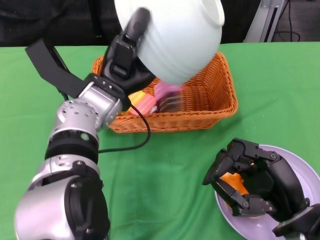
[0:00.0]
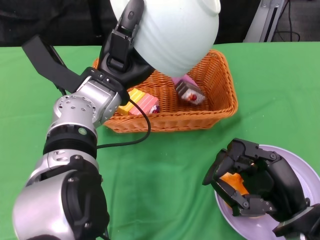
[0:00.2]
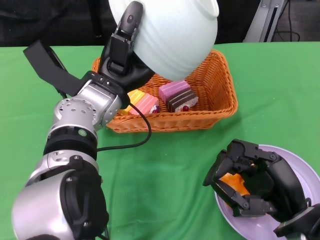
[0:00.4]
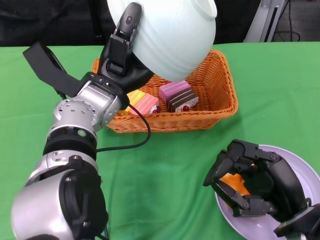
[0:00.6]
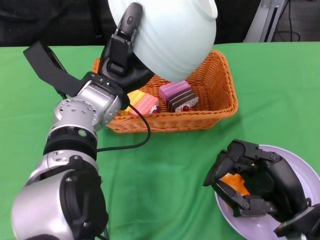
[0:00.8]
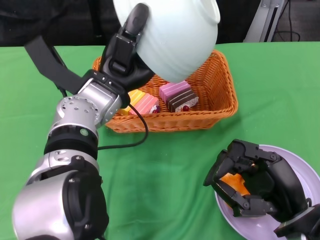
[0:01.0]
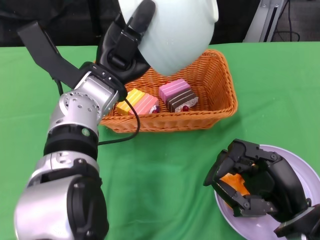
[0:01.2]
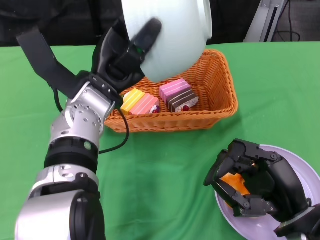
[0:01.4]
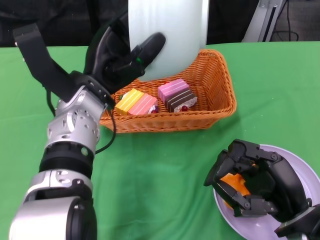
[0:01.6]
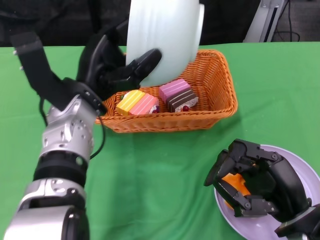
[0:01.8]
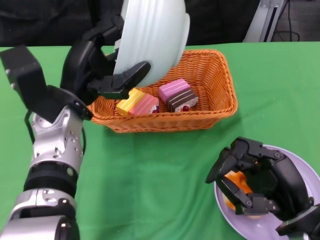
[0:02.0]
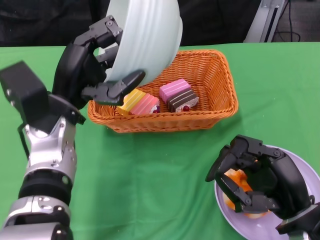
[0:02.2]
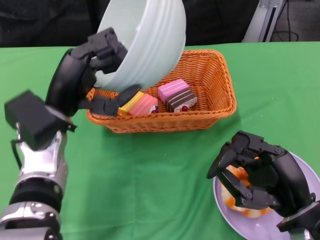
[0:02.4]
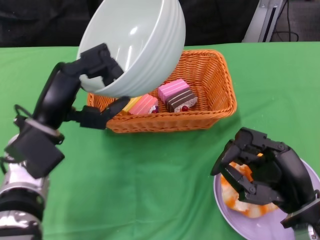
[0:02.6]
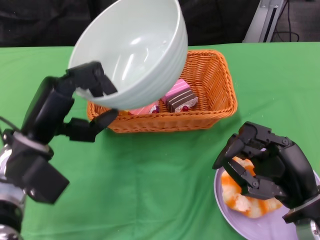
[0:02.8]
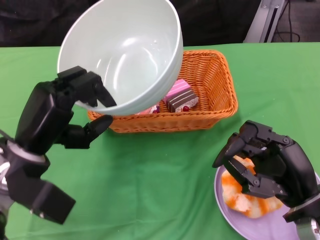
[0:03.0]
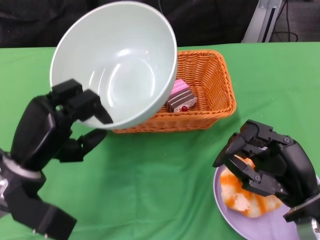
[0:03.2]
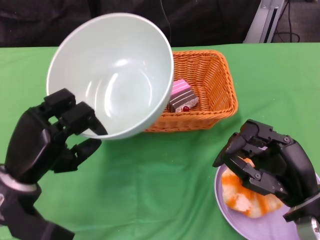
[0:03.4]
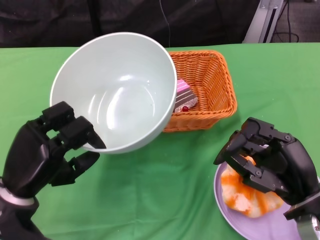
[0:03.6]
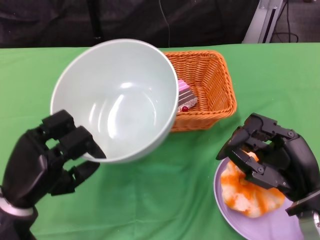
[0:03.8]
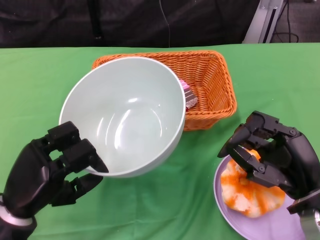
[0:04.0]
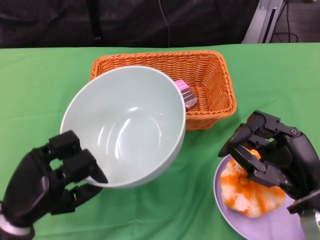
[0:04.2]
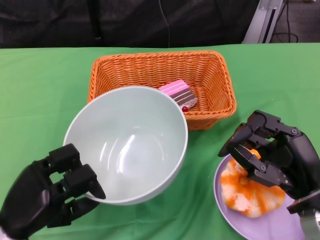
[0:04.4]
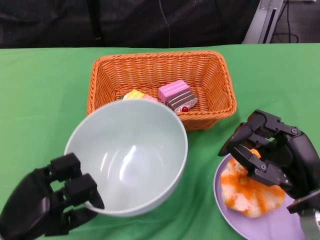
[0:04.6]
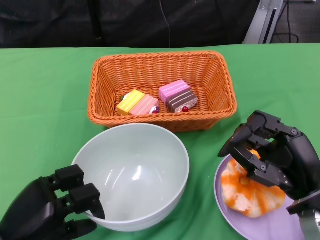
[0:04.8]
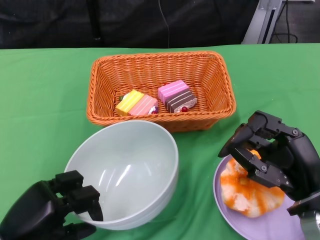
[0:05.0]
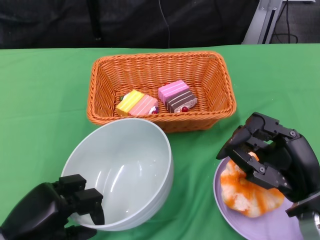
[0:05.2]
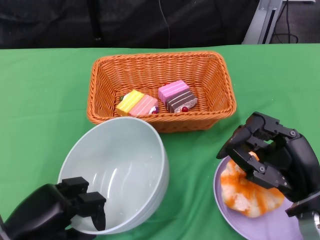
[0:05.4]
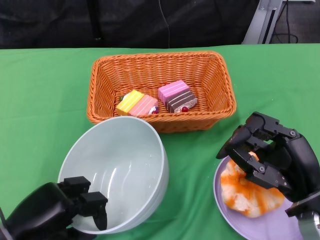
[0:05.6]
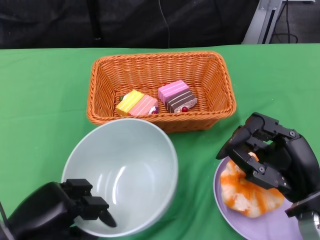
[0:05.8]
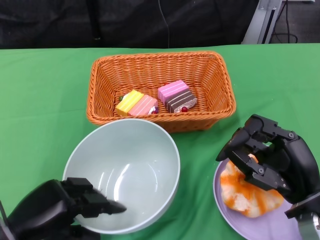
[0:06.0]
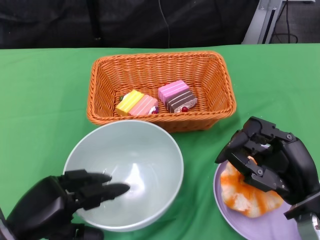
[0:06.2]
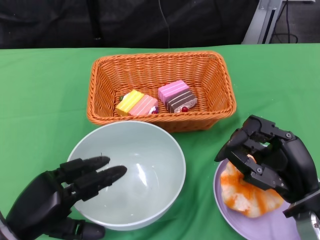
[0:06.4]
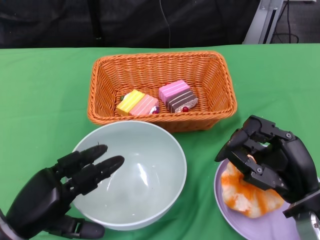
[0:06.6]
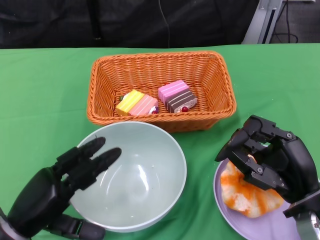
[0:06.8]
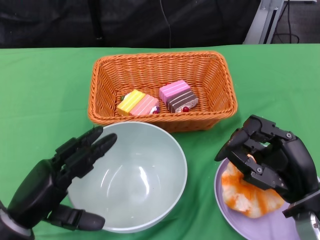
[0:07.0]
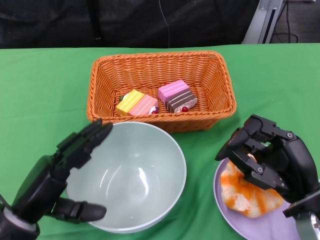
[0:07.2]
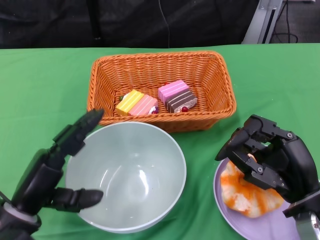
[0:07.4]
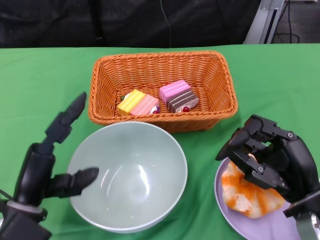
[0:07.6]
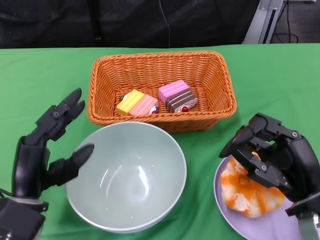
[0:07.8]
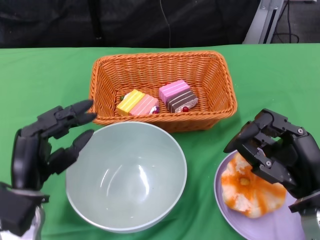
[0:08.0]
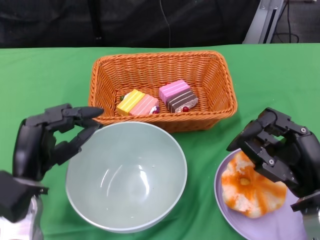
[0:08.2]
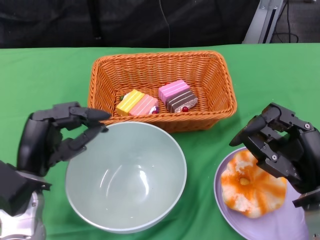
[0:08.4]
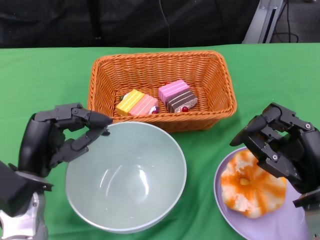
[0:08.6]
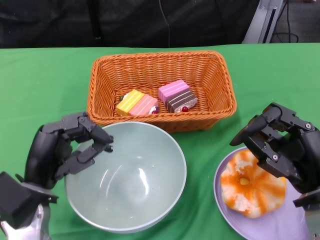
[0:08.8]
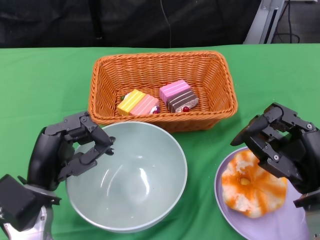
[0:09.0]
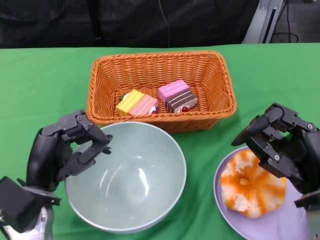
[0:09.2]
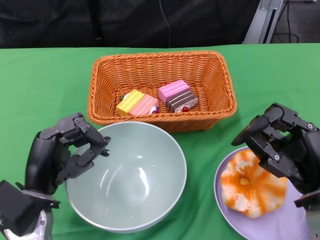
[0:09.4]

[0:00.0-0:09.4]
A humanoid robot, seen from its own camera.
Step, 0:00.2 to 0:07.8: Place the bowl on the table with the left gripper.
0:01.6 to 0:03.2: The left hand goes some 15 cm to the left, backward and downward.
0:03.2 to 0:04.8: The left hand goes roughly 10 cm backward and downward.
0:04.8 to 0:06.2: The hands move only a little.
0:07.8 to 0:09.4: The hands make only small movements.
